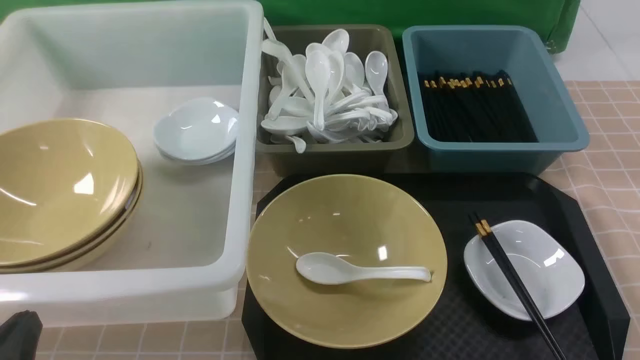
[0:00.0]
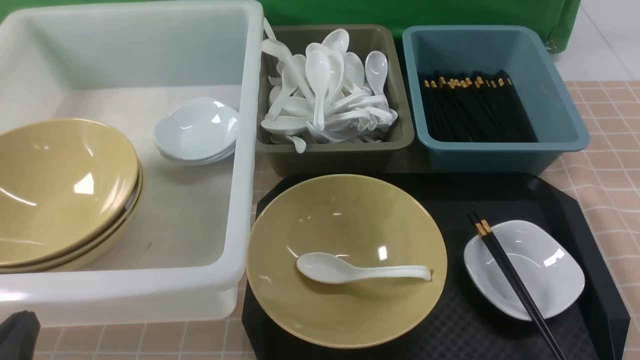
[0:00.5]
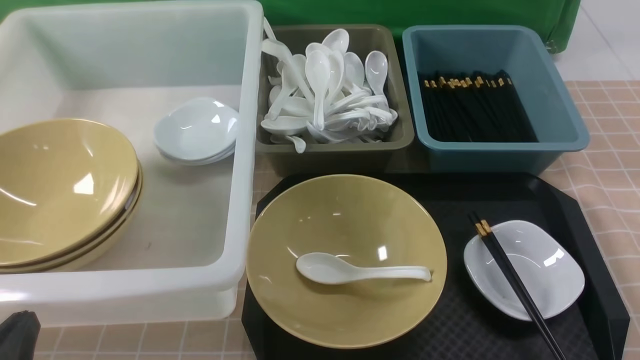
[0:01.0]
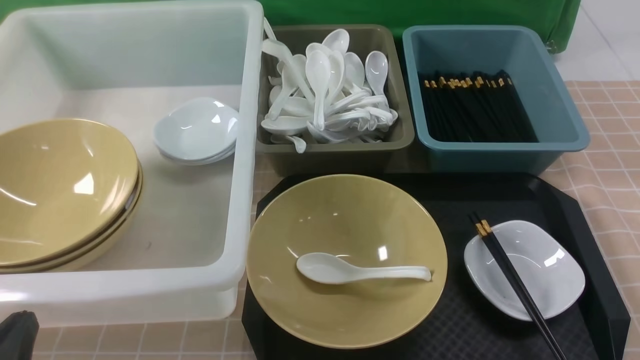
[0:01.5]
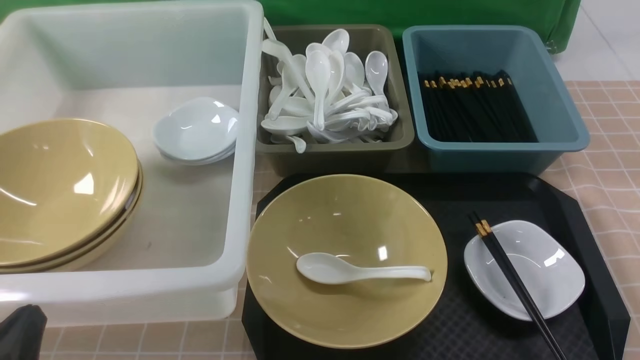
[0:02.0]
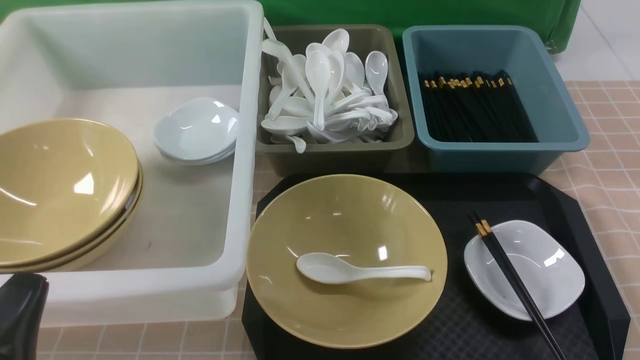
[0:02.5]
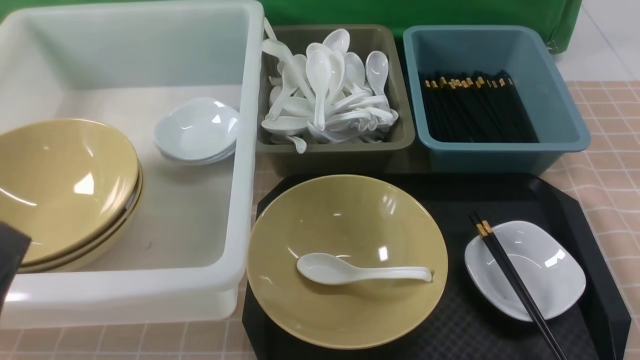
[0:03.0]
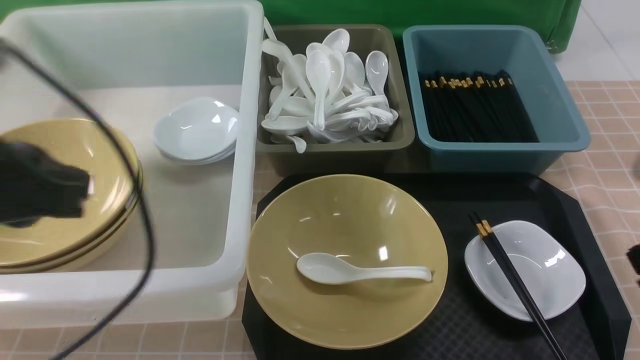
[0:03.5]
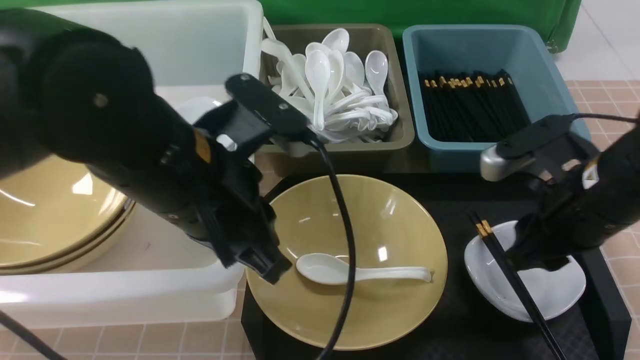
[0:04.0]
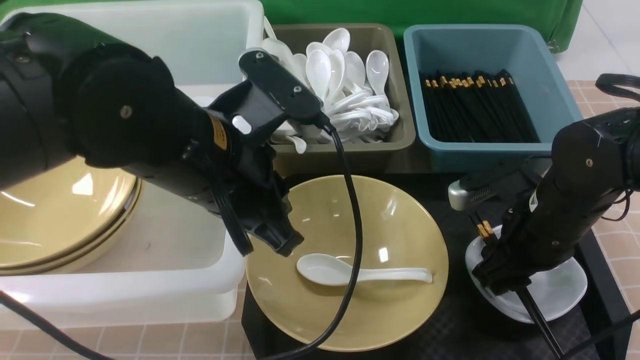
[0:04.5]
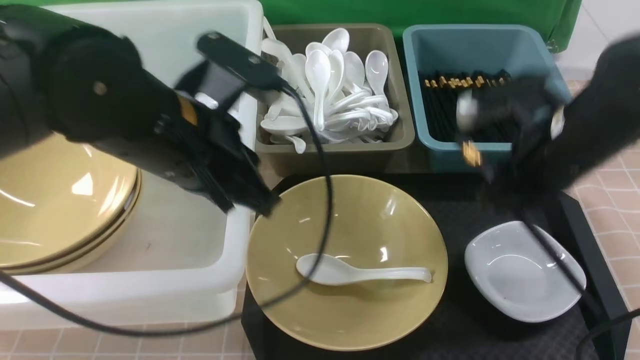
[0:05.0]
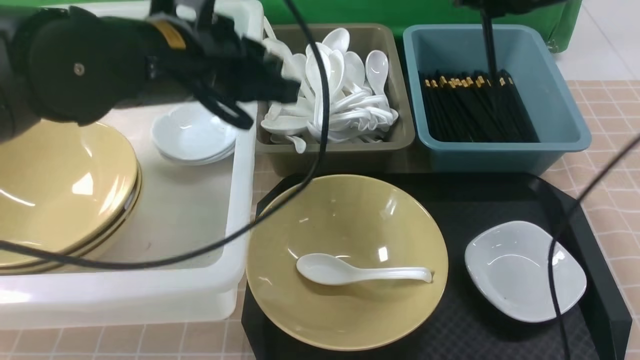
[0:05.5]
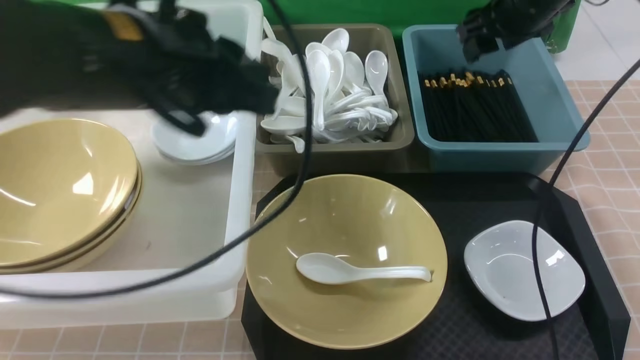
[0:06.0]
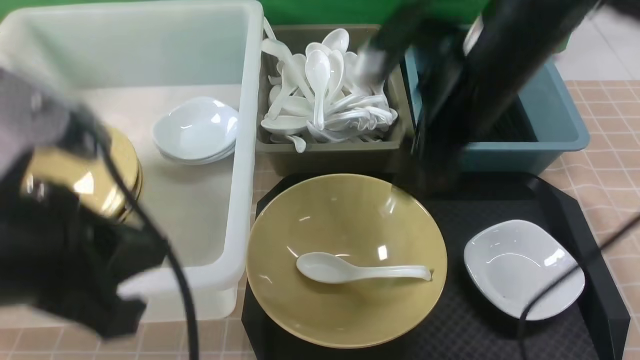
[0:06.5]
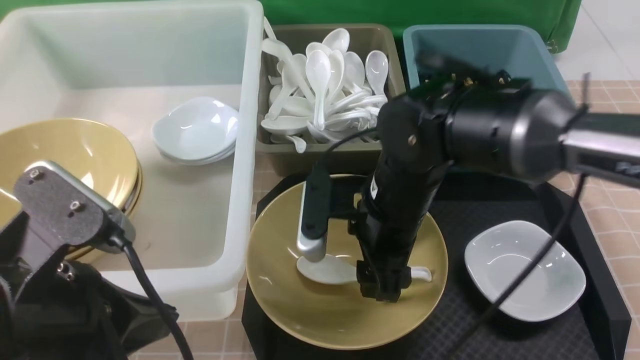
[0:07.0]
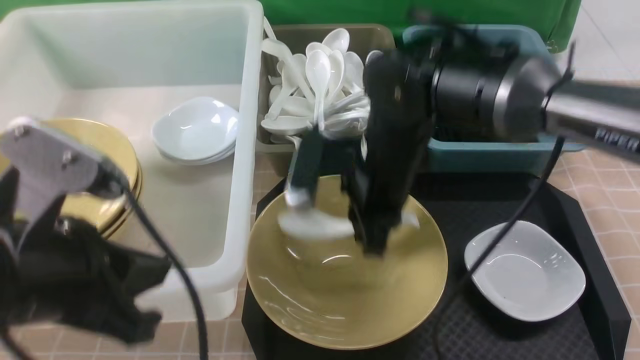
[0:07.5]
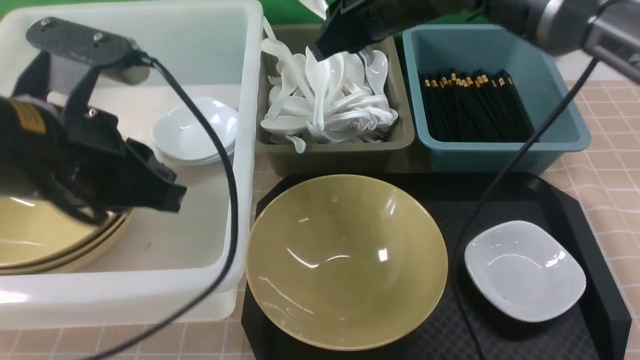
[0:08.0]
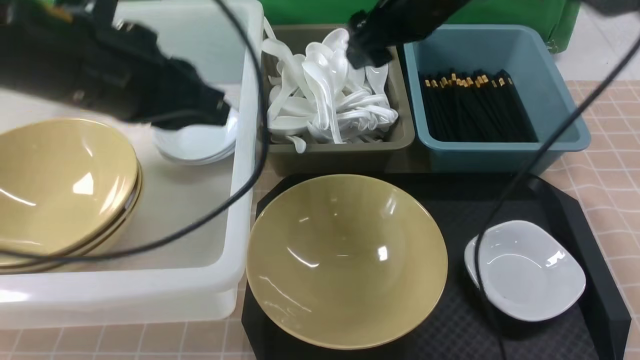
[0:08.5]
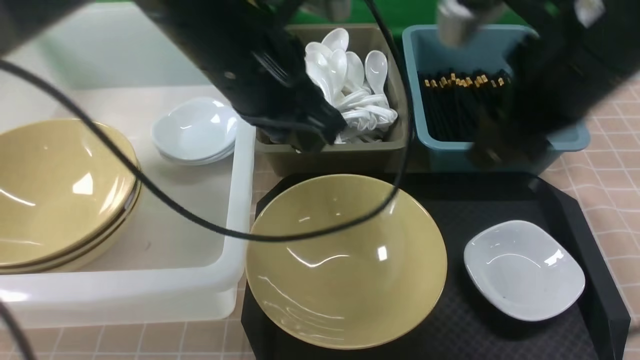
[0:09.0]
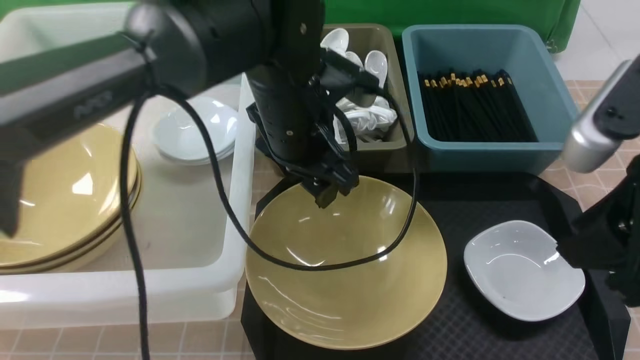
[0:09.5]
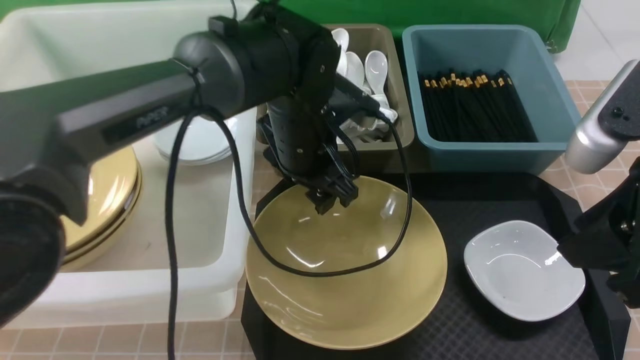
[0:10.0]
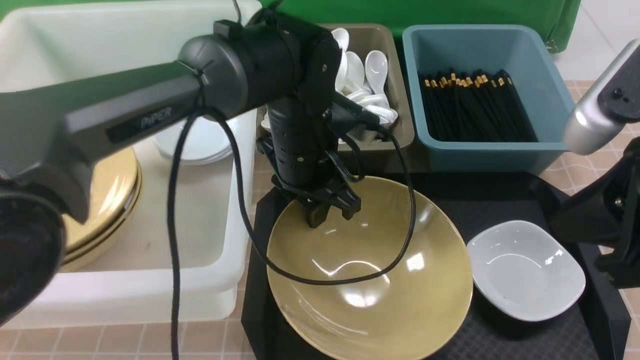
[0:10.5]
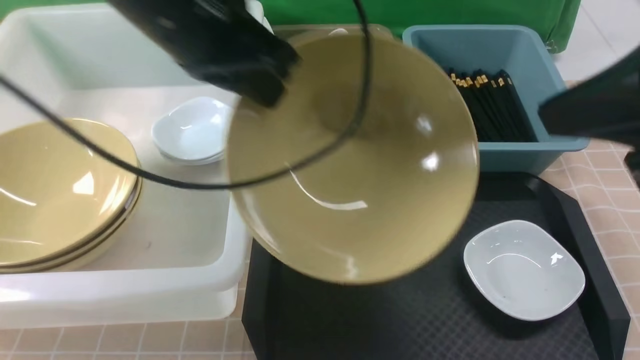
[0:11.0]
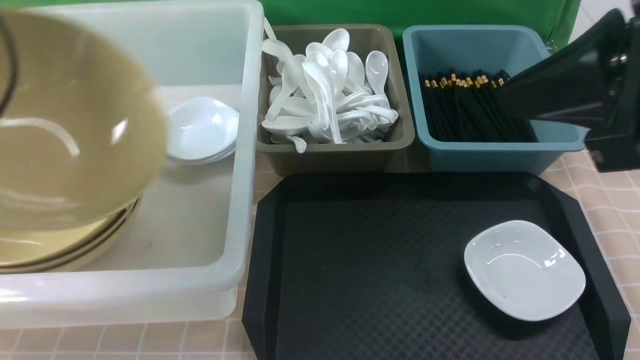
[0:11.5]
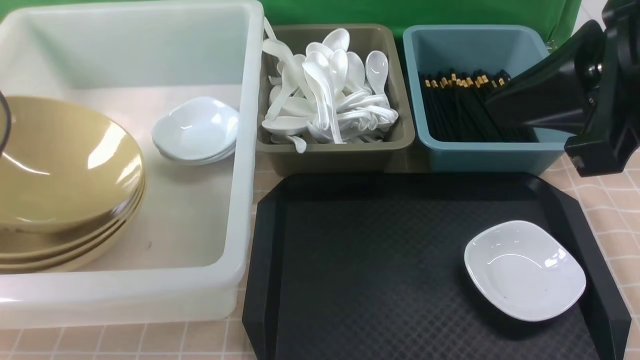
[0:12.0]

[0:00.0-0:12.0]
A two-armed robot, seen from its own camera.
Task of the whole recording: on brown table put chopsticks spoon bowls plates into blue grey white boxes.
Step, 0:00.0 to 0:04.5: use the right arm to grab the chopsticks.
Step, 0:05.0 to 0:06.0: use the right arm to put the chopsticks into the small storage box on the right.
Step, 0:06.5 to 0:07.5: use the right arm to grab the soup spoon in the middle.
Step, 0:08.5 to 0:10.5: use the left arm to grab the yellow noodle bowl on the left.
0:02.0 to 0:04.0: The right gripper goes roughly 25 cm forward, to the left and upward, and closes, then reopens. The left gripper goes about 25 cm forward, upward and to the right.
0:04.0 to 0:06.0: The left gripper changes place by some 5 cm, while the right gripper shifts approximately 25 cm forward, and opens its fingers.
0:06.0 to 0:08.0: The left gripper travels backward and to the left by some 10 cm; the right gripper travels to the left by roughly 15 cm, travels backward and back again, approximately 20 cm each way, and closes up.
0:08.0 to 0:10.0: The left gripper shifts some 25 cm forward, to the right and downward, and opens its fingers, while the right gripper travels backward and to the right by roughly 30 cm, and opens and closes again.
0:10.0 to 0:12.0: The right gripper is displaced upward by some 5 cm, and closes; the left gripper moves to the left, roughly 35 cm, and closes its fingers.

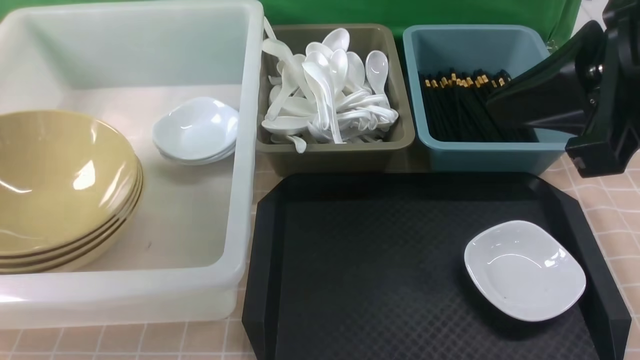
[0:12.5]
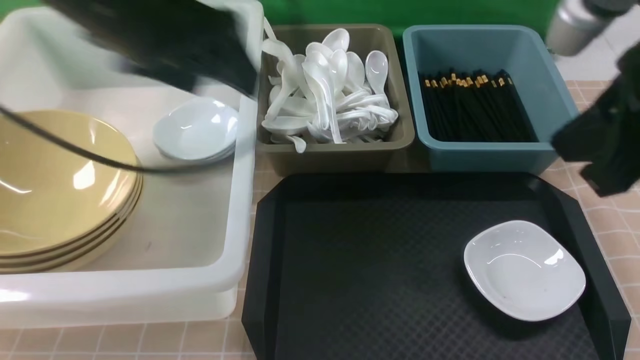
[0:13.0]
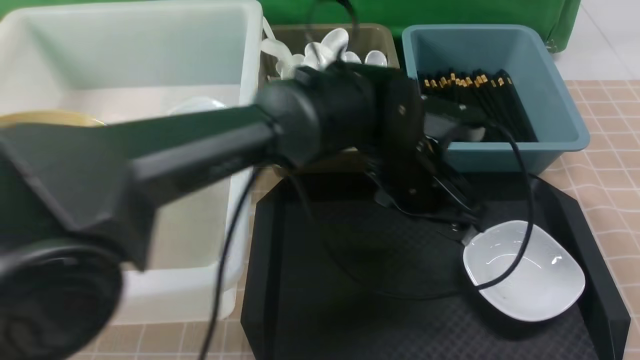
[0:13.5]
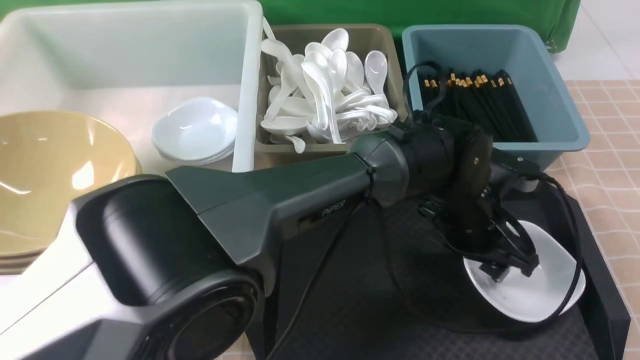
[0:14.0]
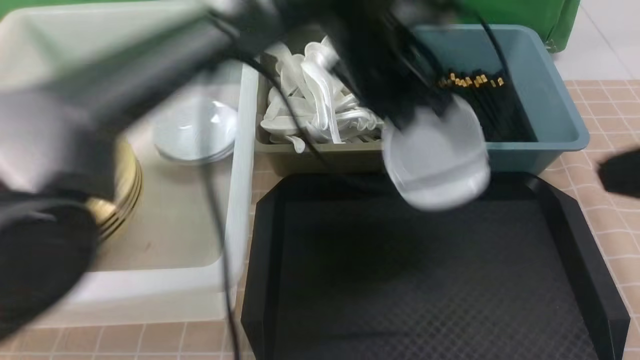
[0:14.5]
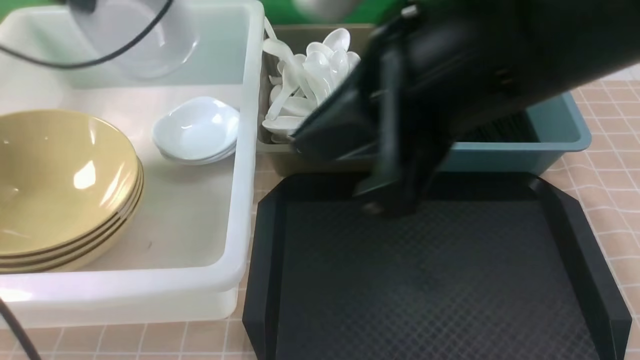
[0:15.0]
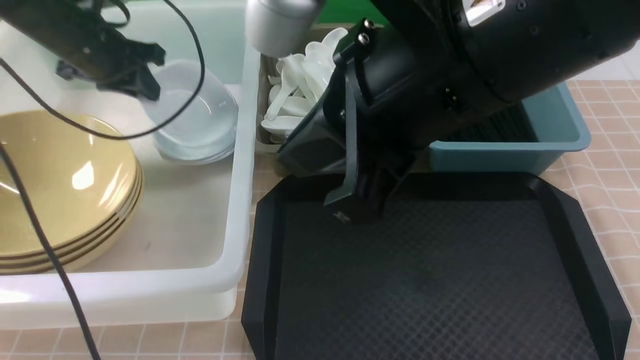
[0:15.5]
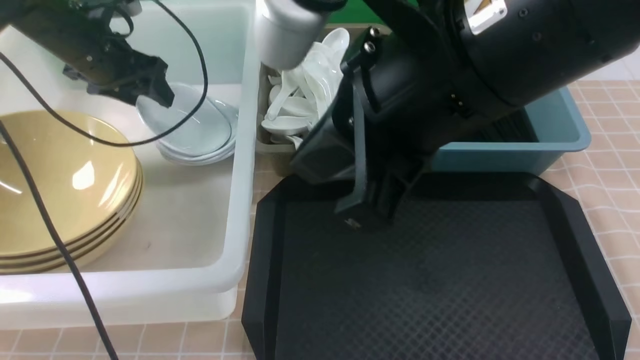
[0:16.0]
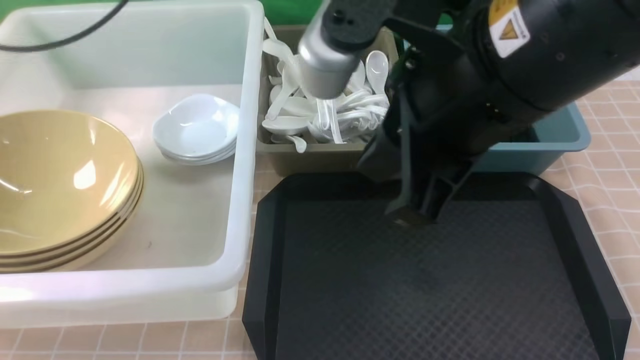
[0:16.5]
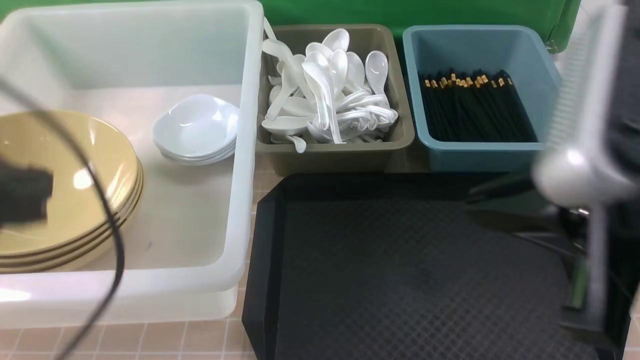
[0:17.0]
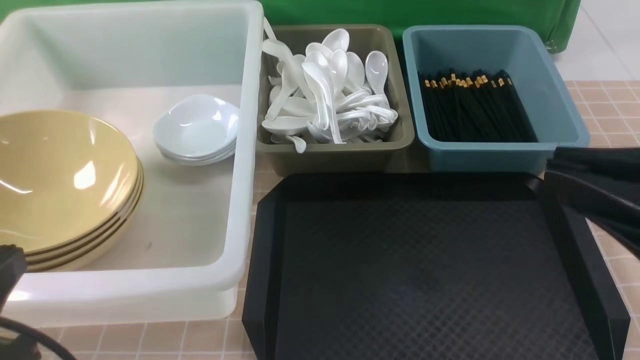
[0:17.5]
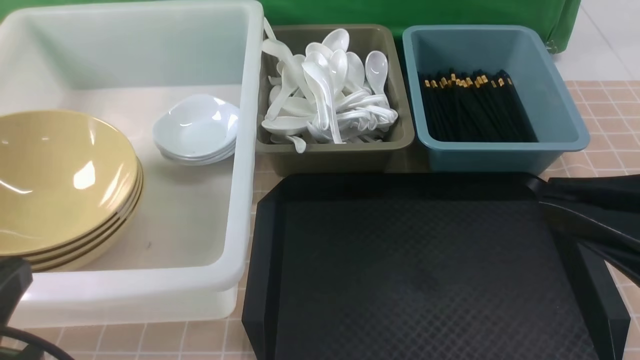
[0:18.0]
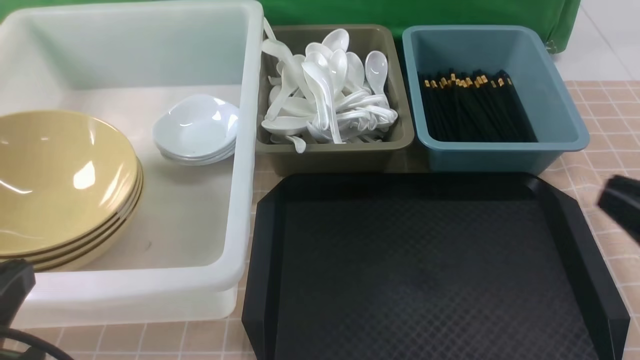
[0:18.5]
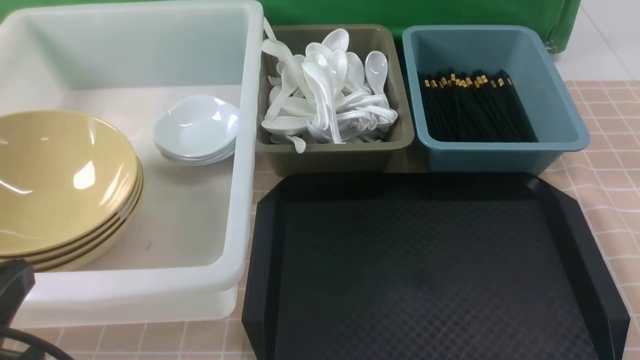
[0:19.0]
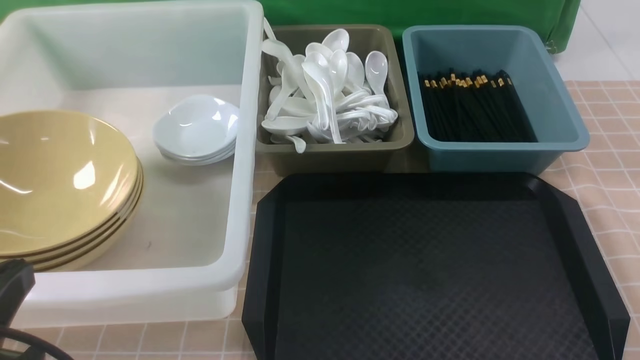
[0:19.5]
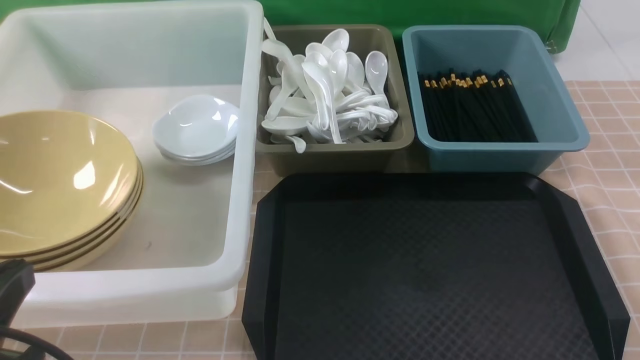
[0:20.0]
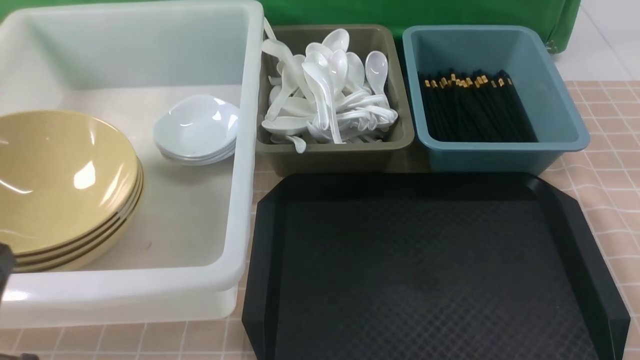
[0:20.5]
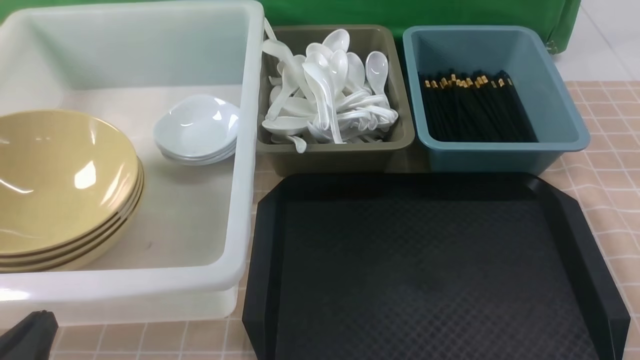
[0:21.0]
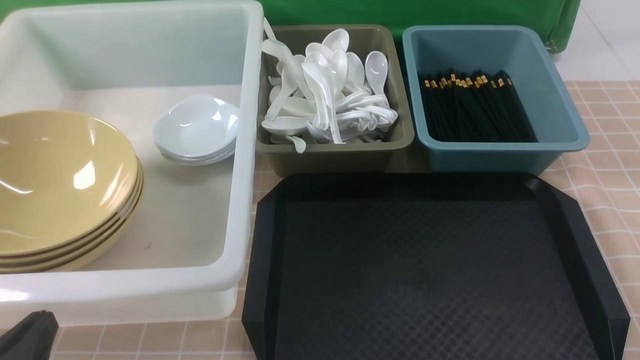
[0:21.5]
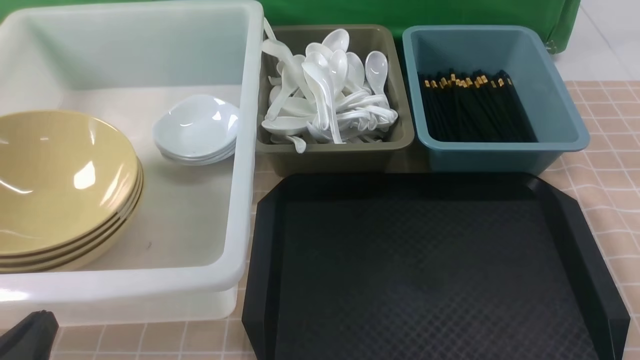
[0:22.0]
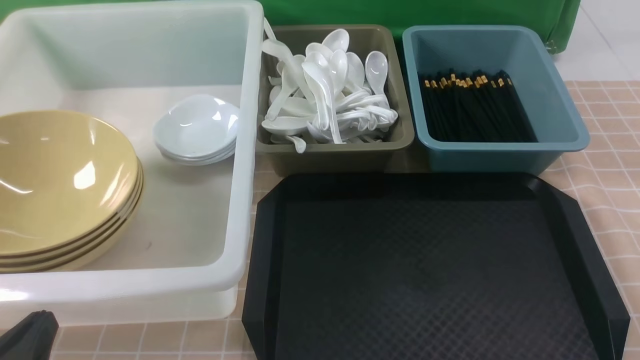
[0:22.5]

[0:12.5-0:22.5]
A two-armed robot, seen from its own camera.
Task of the whole recording: on brown table put chopsticks spoon bowls plates into blue grey white boxes.
Step, 0:13.0 to 0:14.0: use the left arm to grab the plate.
Step, 0:14.5 to 0:16.0: use the left arm to put the plate into the large storage box on the left.
0:12.5 to 0:14.5: The left gripper travels to the right by roughly 40 cm, and closes up; the right gripper goes roughly 5 cm backward.
0:14.5 to 0:16.5: The left gripper is displaced to the left by approximately 30 cm, and opens its fingers. The right gripper moves to the left and forward, roughly 15 cm.
0:16.5 to 0:18.5: The right gripper shifts about 20 cm to the right, backward and downward; the left gripper heads backward and downward, covering about 35 cm, and closes its fingers.
0:18.5 to 0:20.5: The right gripper travels downward and to the right by approximately 15 cm.
0:20.5 to 0:22.5: The left gripper is displaced downward by some 10 cm.
